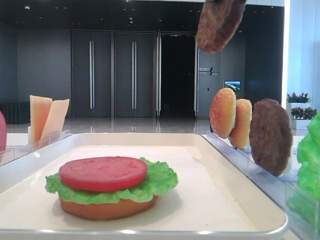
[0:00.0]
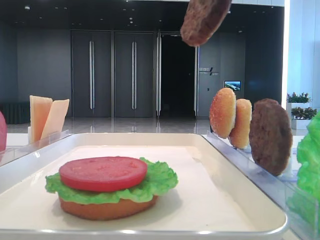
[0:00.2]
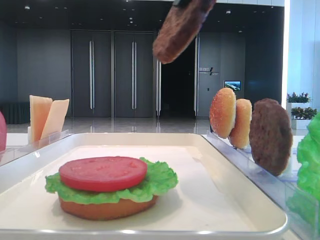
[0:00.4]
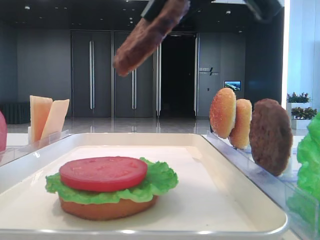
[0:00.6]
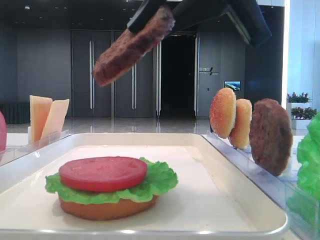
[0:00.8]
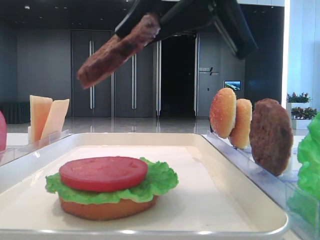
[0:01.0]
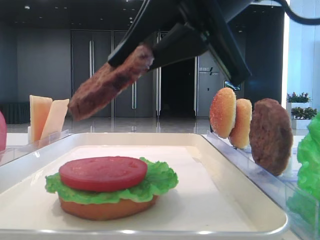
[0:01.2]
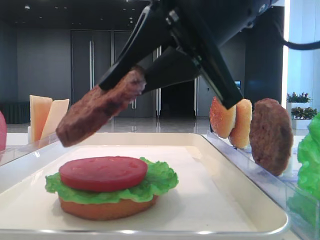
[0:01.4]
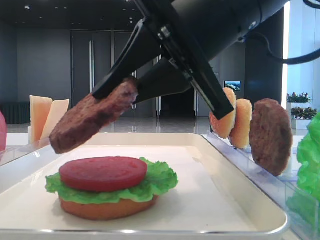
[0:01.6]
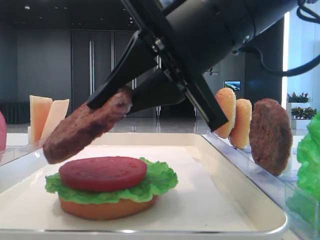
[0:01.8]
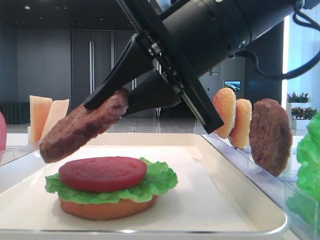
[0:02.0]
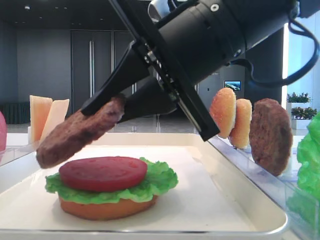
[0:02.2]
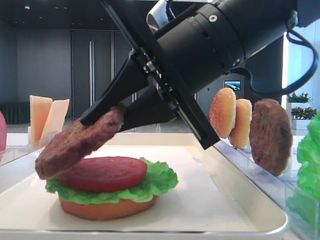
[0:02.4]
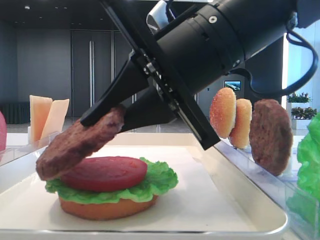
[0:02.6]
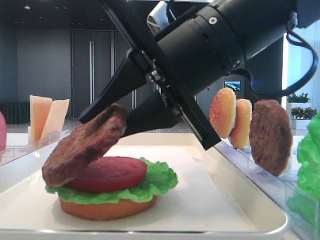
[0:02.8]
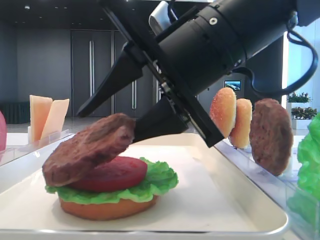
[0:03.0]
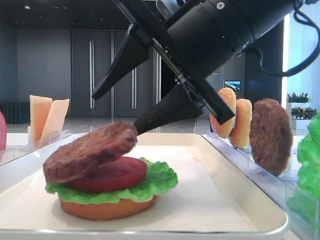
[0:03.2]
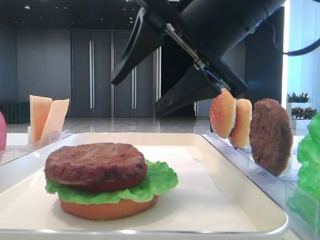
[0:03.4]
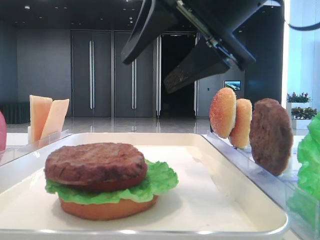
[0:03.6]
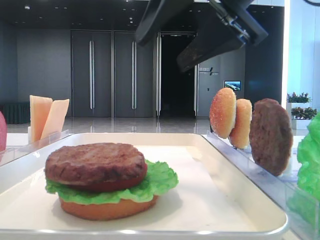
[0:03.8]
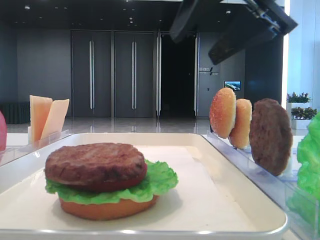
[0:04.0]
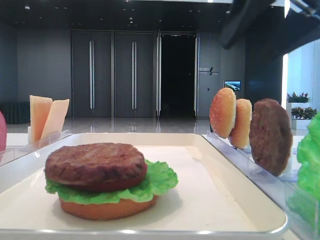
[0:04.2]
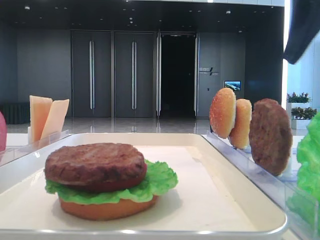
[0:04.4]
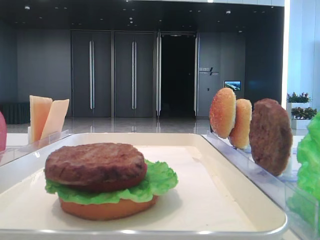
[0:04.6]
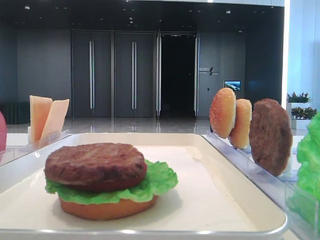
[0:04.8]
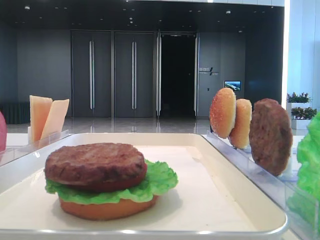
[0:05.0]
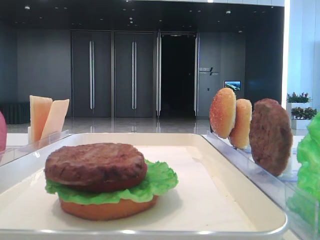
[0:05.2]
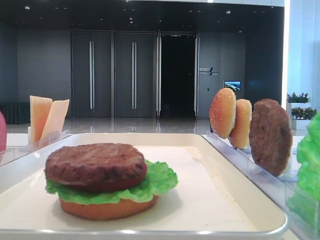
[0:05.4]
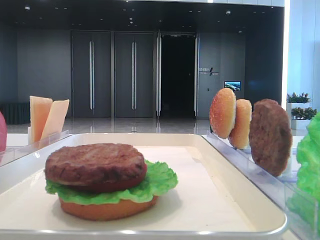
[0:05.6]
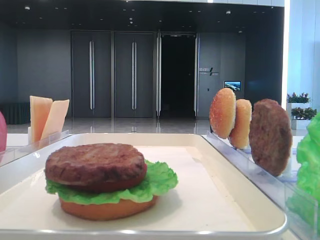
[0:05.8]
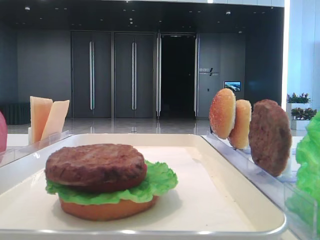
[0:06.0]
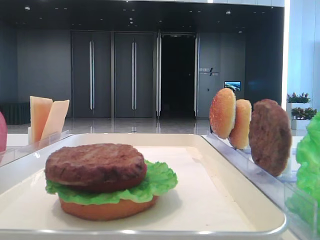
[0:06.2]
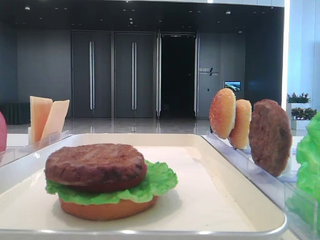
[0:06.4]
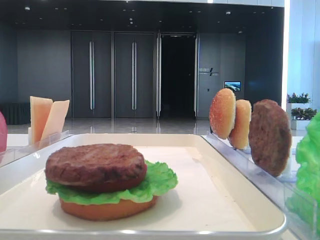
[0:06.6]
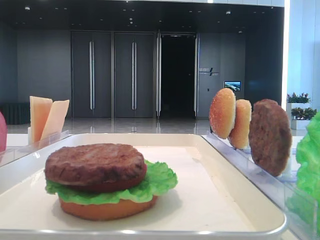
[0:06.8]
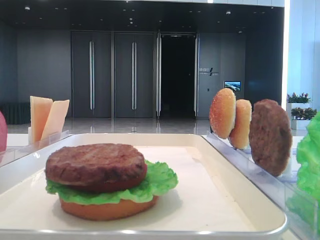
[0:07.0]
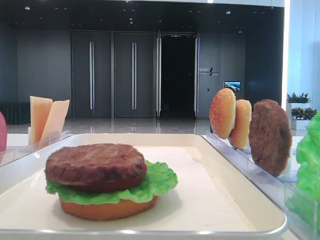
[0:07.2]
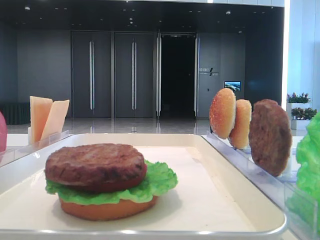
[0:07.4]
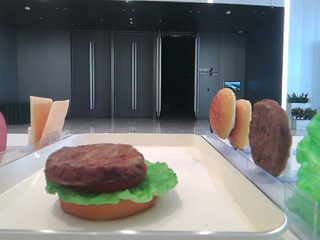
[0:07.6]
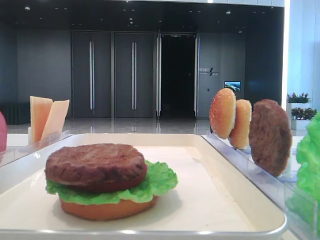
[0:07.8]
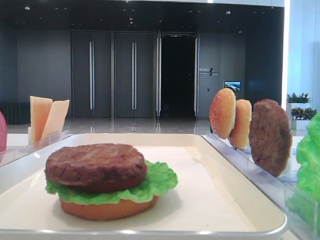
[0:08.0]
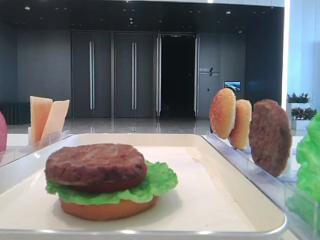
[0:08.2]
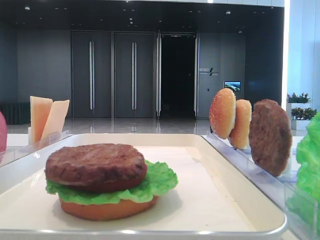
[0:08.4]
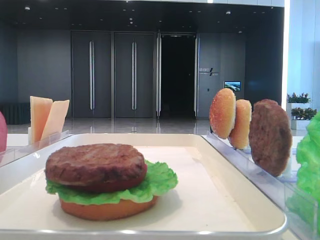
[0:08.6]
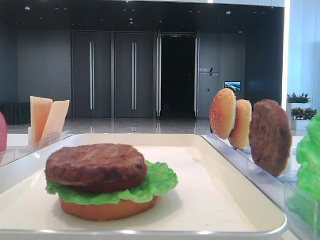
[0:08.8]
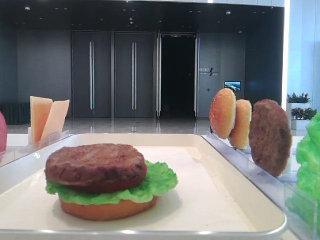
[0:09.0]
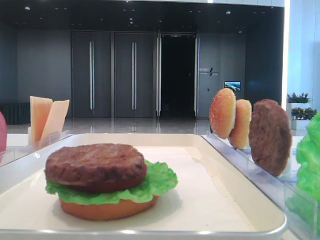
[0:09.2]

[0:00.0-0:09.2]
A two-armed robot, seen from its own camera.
Step, 0:00.0 to 0:03.2: Place the patty on the tomato slice with the right hand.
0:00.0 to 0:01.6: The right gripper heads downward, covering some 15 cm.
0:01.6 to 0:03.0: The right gripper opens.
0:03.0 to 0:04.6: The right gripper shifts about 20 cm to the right and upward.
0:04.6 to 0:06.2: The right gripper goes approximately 25 cm backward.
0:06.2 to 0:07.6: The two grippers keep their place.

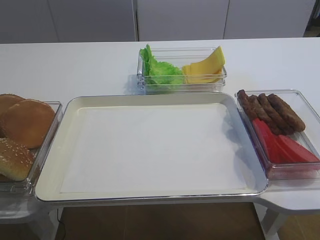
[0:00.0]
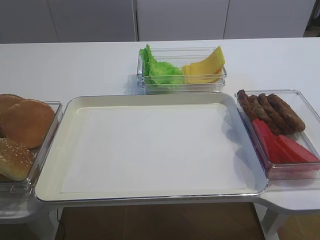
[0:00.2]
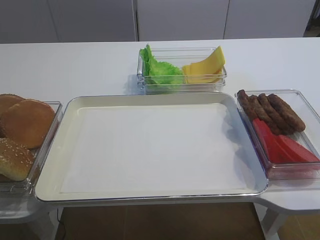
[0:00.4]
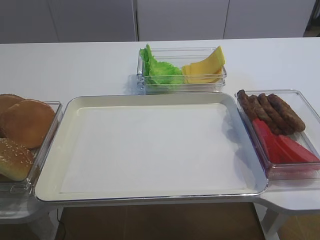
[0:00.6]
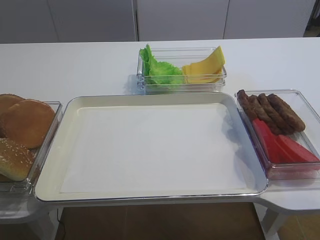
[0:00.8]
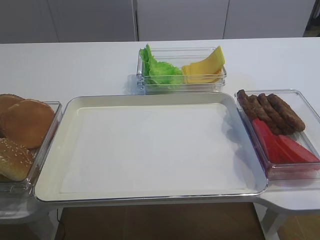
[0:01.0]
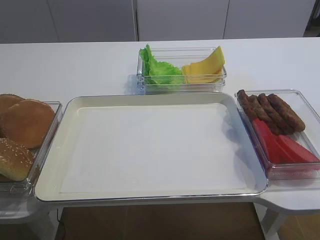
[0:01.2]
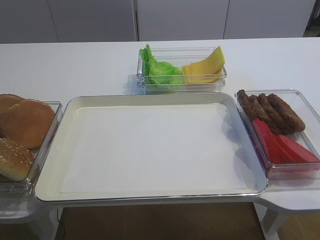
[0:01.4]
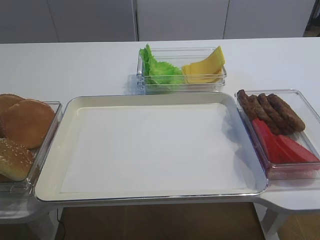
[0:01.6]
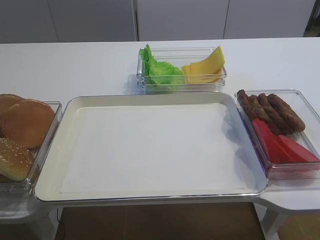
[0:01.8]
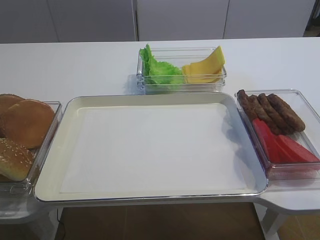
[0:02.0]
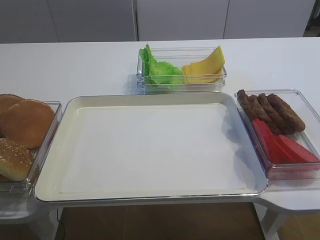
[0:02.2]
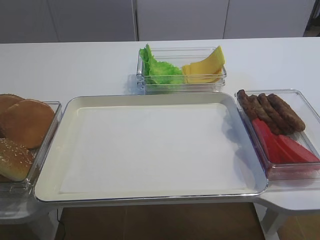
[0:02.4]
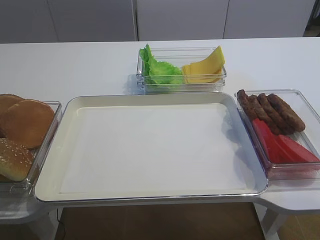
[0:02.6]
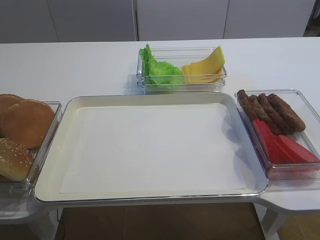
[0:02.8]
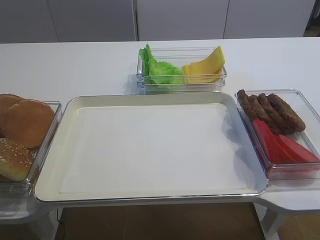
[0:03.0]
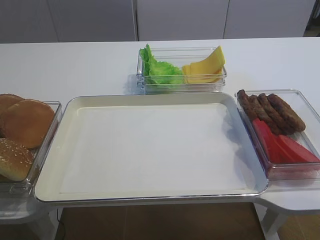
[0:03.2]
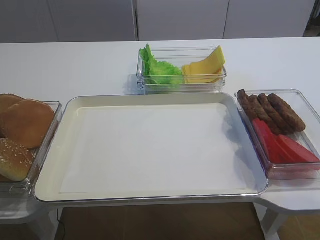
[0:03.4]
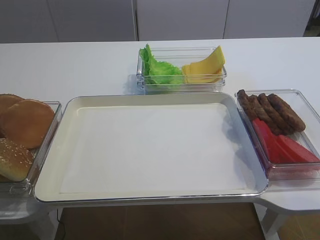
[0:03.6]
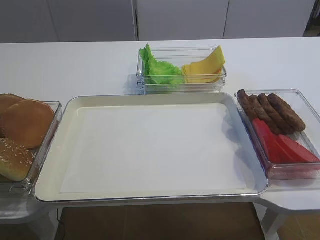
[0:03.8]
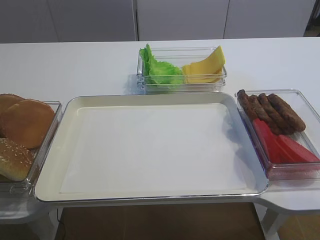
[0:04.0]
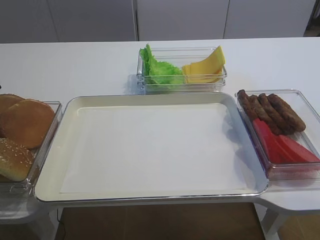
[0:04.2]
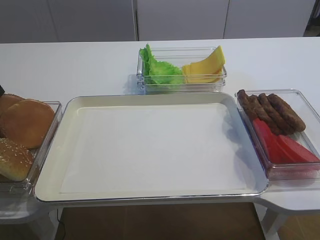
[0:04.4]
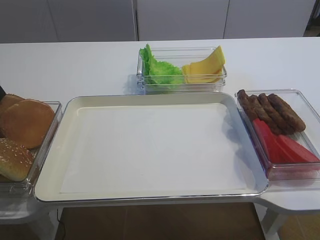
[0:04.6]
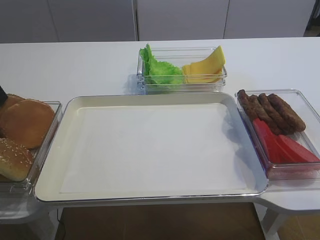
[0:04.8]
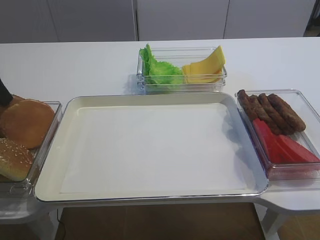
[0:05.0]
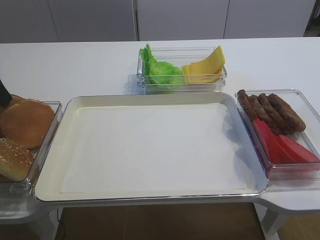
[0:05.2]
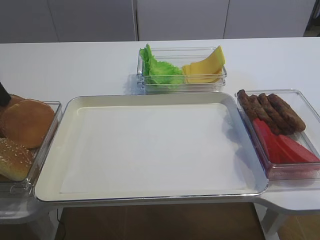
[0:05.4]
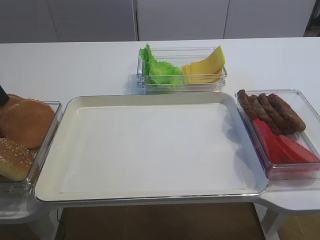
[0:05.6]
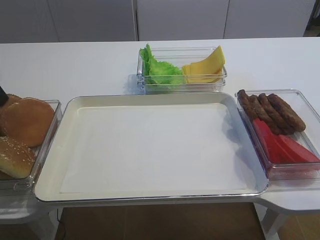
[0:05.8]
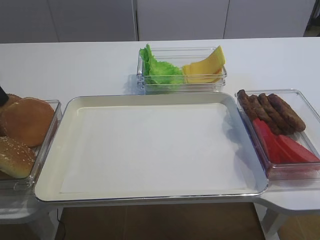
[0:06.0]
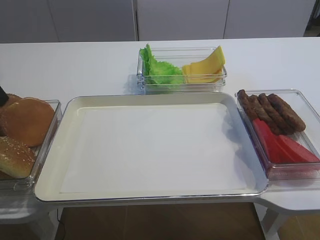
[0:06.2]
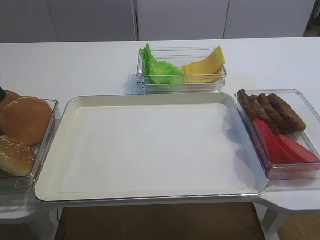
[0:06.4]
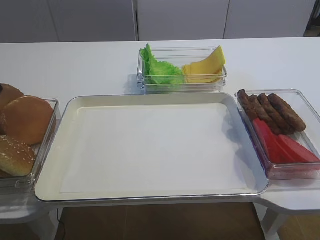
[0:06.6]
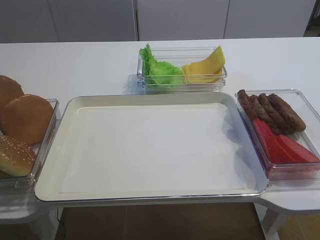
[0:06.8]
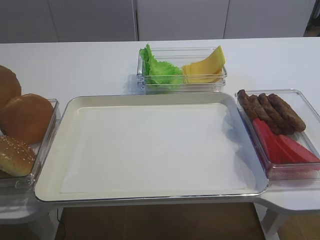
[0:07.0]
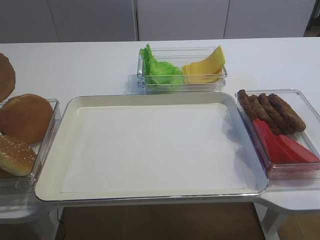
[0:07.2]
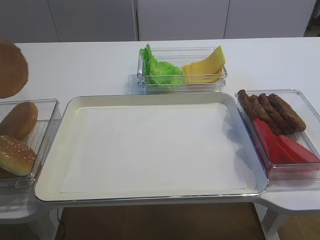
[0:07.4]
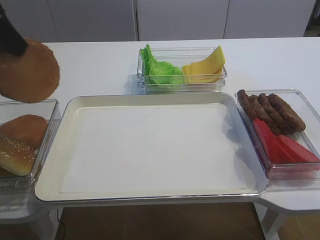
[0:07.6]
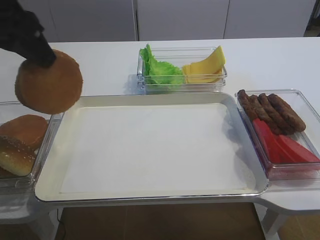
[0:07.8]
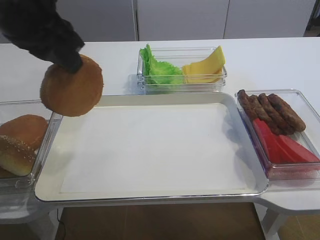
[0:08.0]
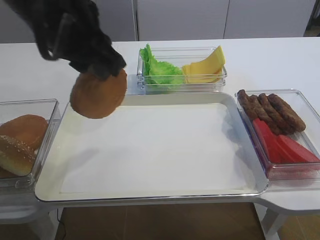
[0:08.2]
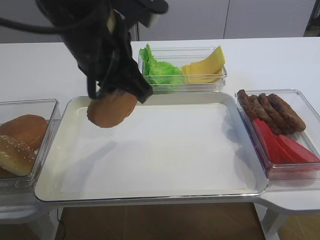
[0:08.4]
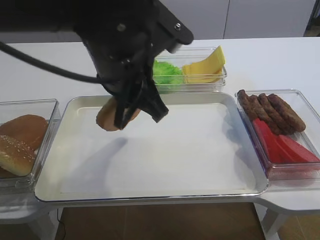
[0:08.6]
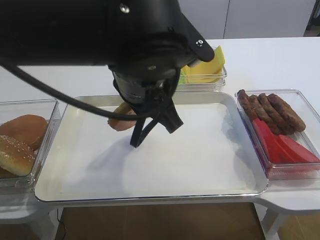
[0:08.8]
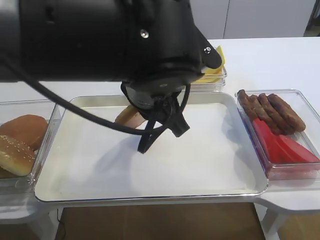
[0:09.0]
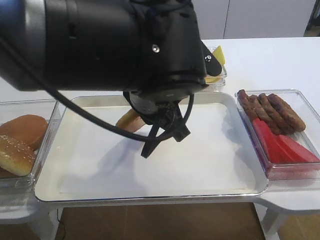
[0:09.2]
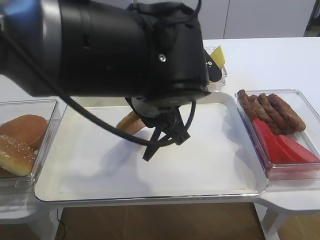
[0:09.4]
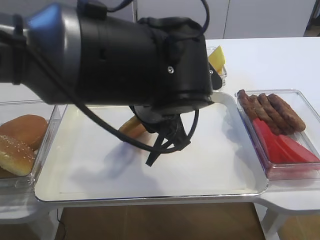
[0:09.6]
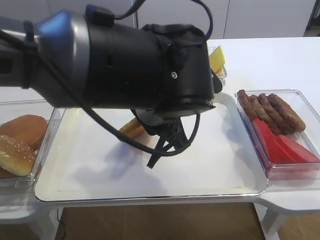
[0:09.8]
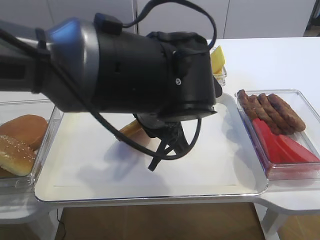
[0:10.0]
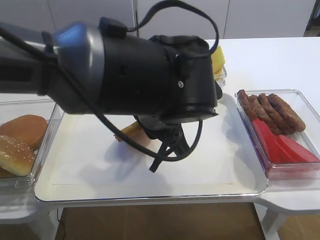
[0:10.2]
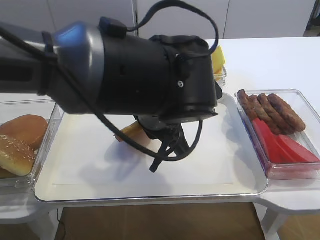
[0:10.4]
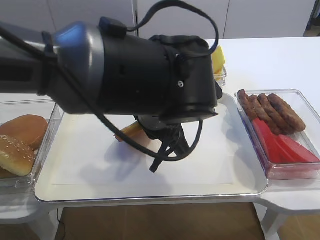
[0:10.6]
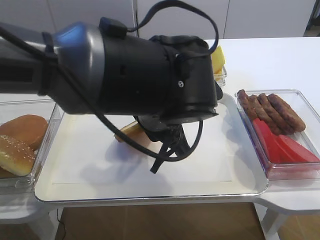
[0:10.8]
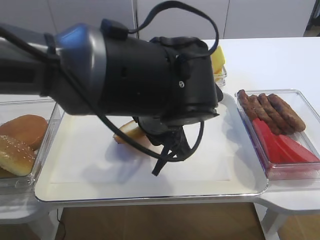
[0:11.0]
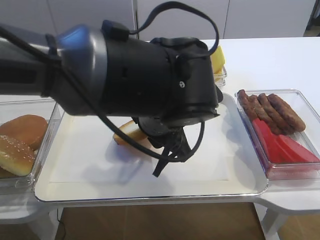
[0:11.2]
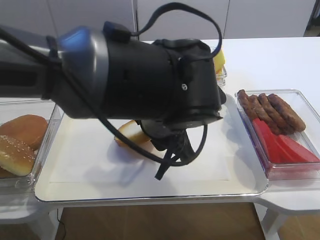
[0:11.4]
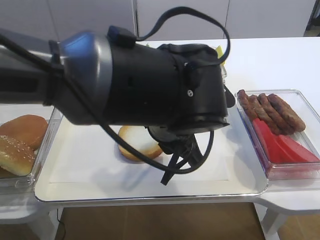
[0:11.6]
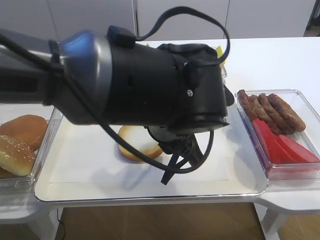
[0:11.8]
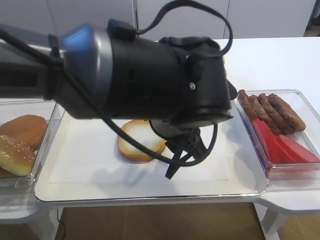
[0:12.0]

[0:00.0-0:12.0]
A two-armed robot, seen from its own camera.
Step, 0:07.4 to 0:11.8: Place the bread slice on the tray with the left gripper.
0:04.4 to 0:06.0: The left gripper closes up.
0:06.0 to 0:07.6: The left gripper shifts roughly 15 cm upward, to the right and backward.
0:07.6 to 0:09.0: The left gripper travels to the right by some 25 cm.
0:10.4 to 0:12.0: The left gripper opens.

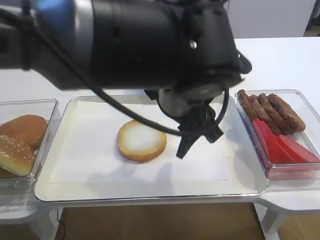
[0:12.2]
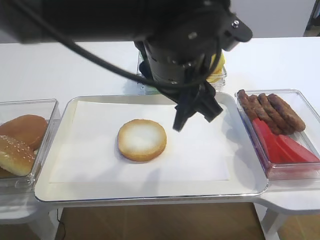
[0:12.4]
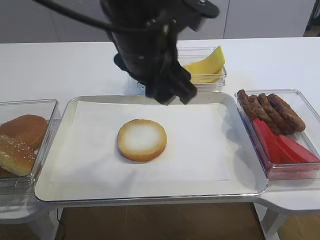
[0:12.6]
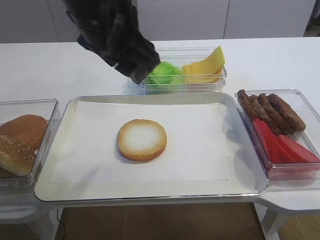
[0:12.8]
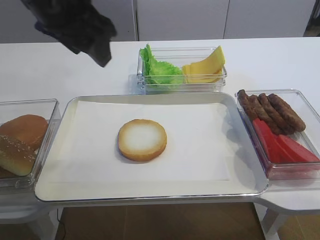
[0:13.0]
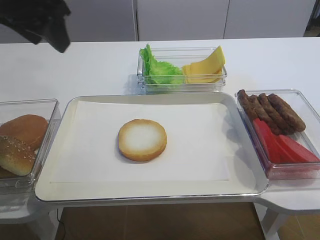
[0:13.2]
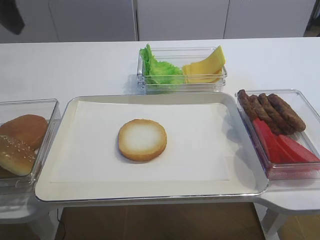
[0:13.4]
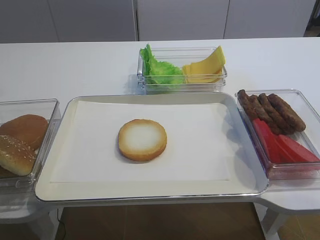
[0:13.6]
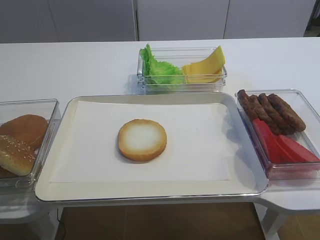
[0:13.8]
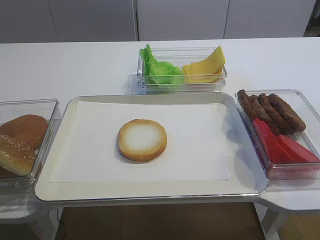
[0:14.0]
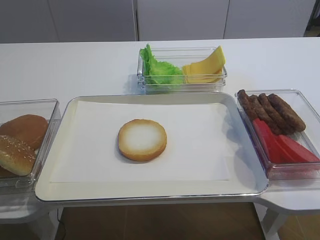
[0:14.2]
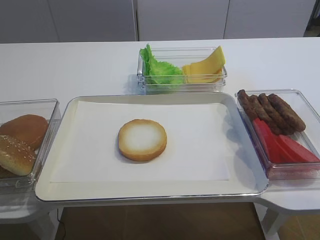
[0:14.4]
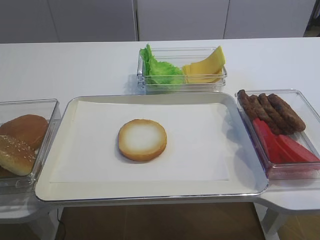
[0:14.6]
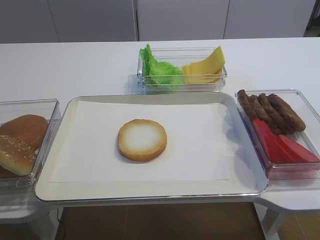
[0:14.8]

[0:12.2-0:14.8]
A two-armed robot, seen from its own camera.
0:12.2 to 0:13.4: The left gripper is displaced to the left and upward by roughly 30 cm.
0:13.4 to 0:14.8: The left gripper travels backward by some 30 cm.
